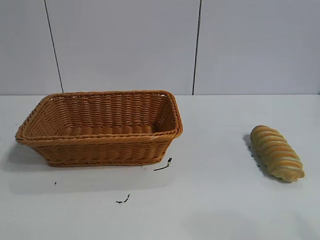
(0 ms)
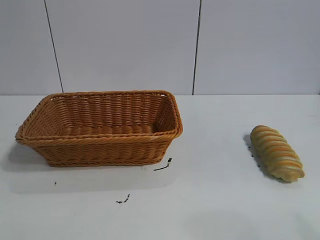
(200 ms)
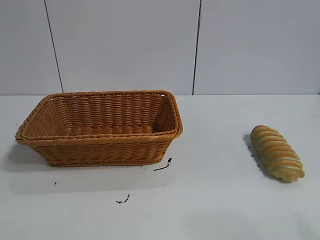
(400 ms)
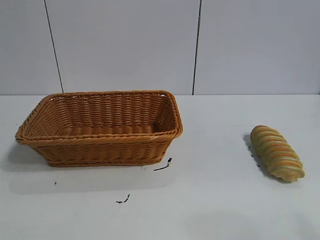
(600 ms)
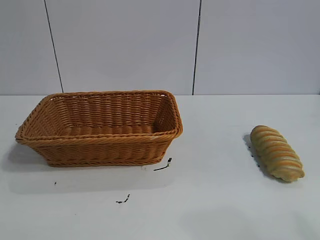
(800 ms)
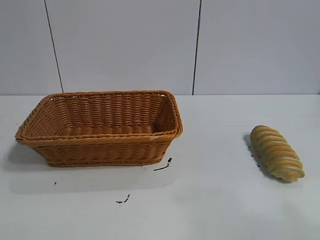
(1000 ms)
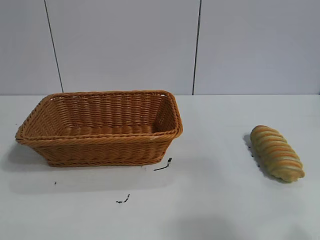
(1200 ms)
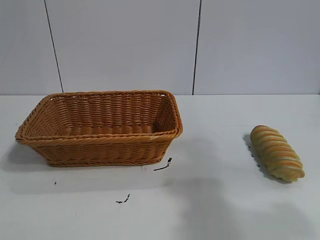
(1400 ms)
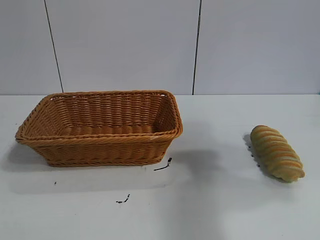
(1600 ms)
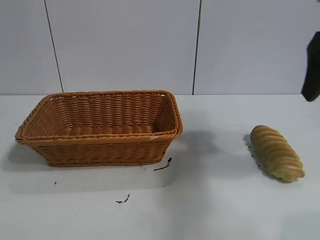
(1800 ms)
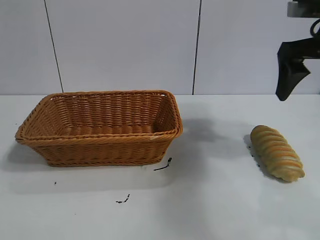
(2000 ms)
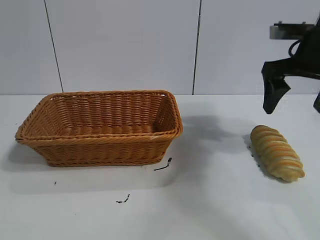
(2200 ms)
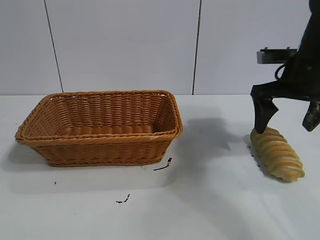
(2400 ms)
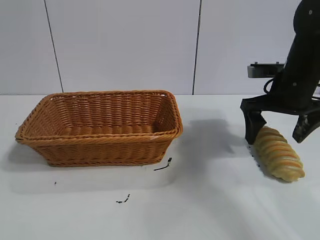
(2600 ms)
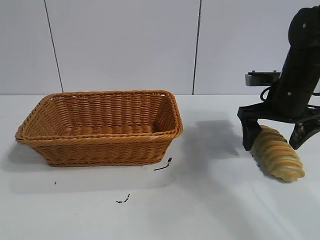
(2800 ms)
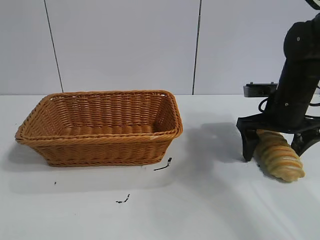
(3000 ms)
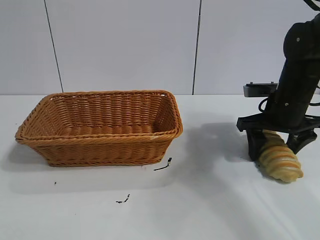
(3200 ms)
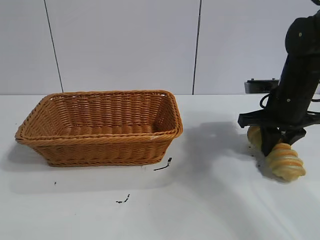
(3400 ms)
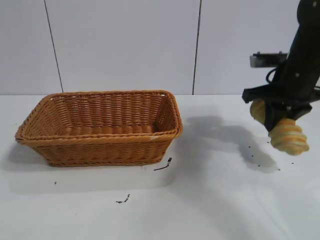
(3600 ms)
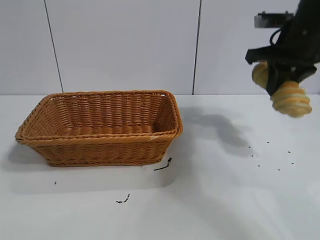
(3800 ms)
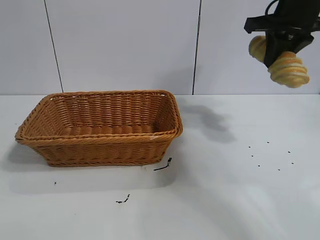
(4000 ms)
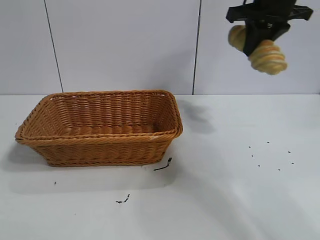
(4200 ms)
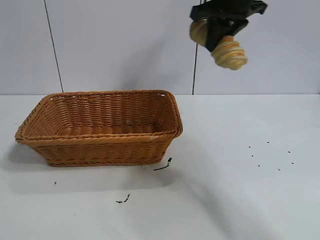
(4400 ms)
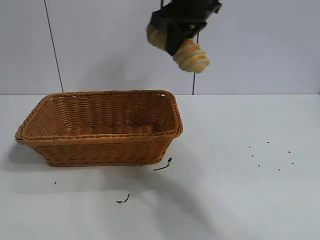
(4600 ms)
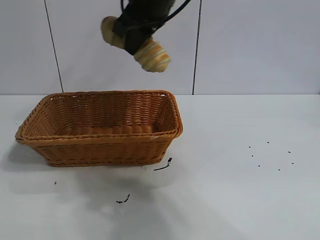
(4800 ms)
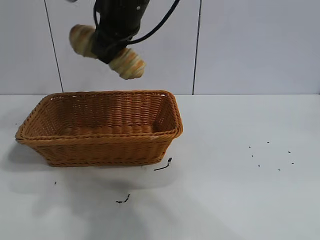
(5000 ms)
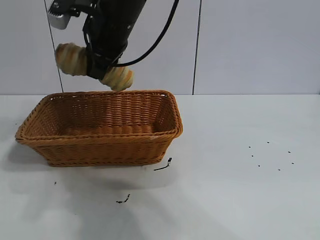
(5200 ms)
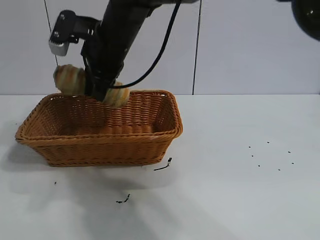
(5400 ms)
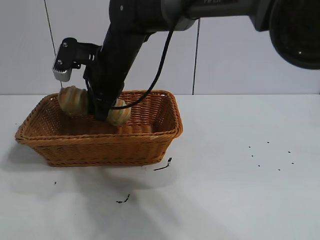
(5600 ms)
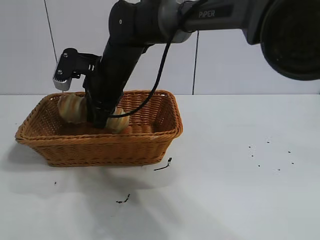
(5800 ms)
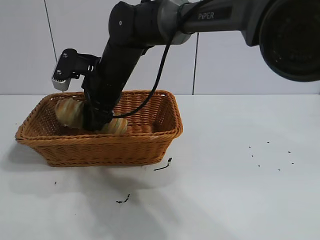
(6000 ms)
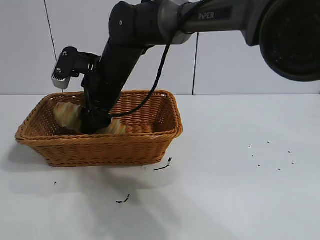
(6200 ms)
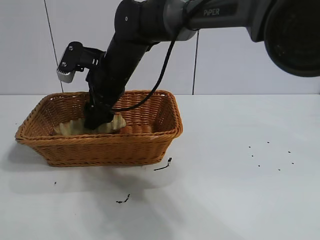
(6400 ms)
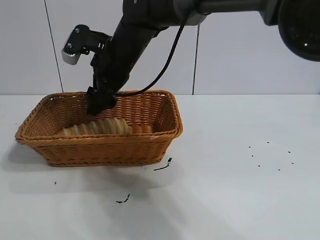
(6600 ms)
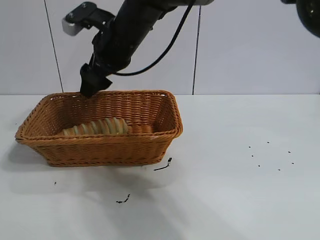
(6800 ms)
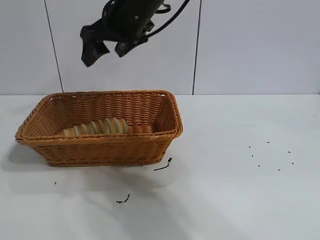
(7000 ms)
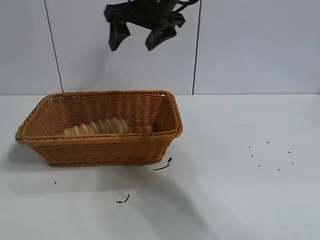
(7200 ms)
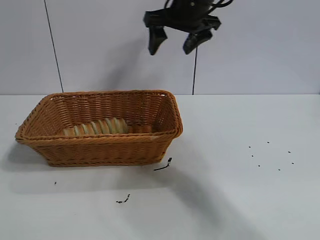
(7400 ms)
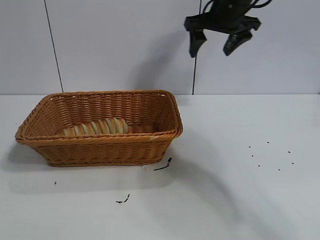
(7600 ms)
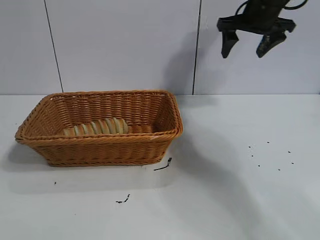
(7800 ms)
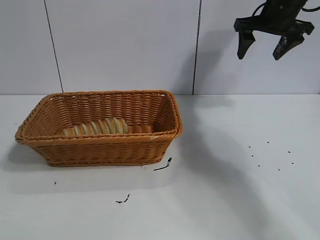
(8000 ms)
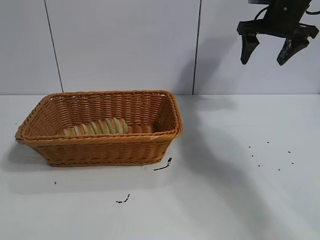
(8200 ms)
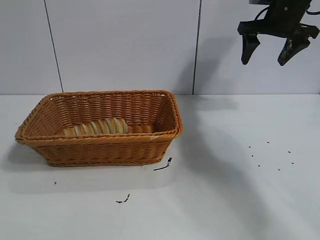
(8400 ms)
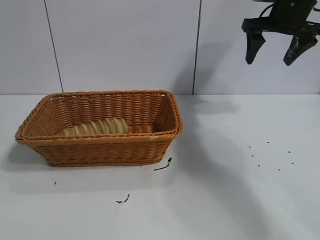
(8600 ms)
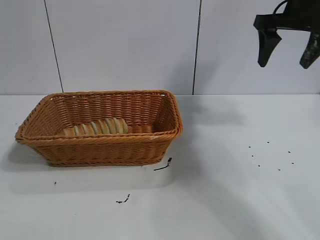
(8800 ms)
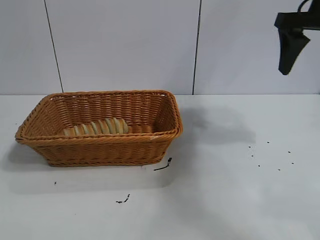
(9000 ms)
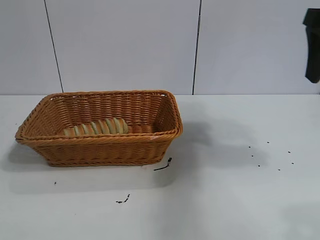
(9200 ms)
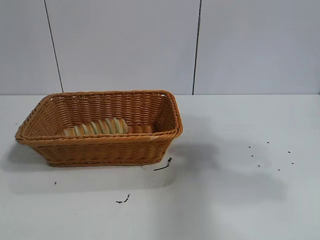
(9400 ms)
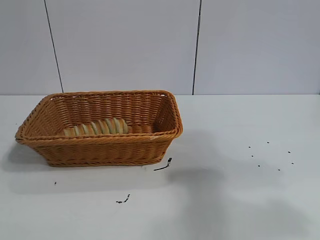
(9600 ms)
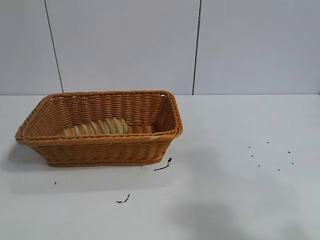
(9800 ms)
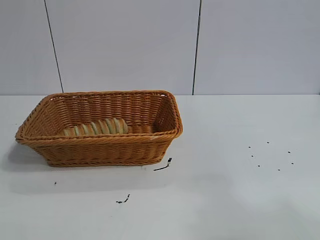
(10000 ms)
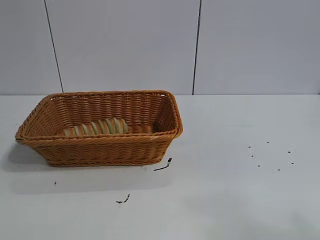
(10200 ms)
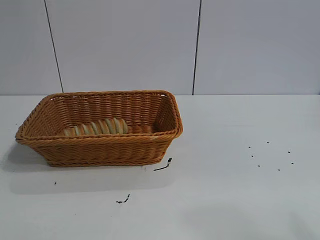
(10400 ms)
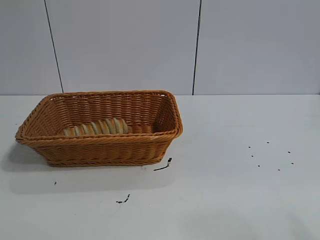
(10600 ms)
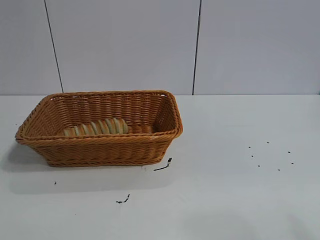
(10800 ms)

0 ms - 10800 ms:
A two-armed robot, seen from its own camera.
Task of the whole recording: pick up the long bread and put it into the basket.
Step, 1800 ms - 3400 ms: Grasp the long bread with right gripper.
Step, 3600 ms - 6600 ms: Place the long bread in the basket with right gripper.

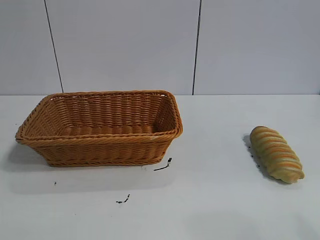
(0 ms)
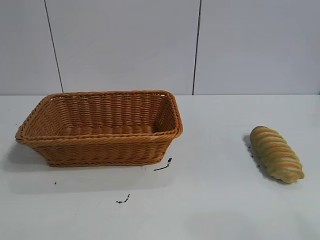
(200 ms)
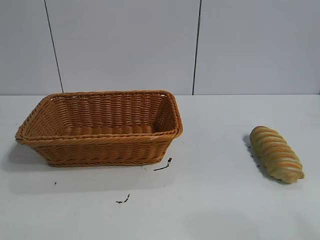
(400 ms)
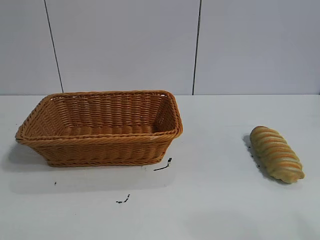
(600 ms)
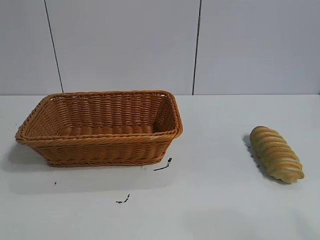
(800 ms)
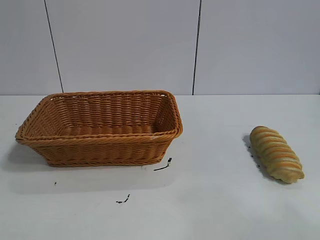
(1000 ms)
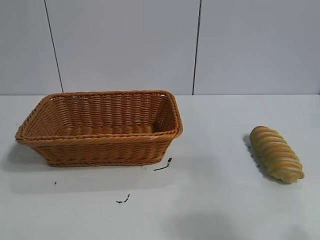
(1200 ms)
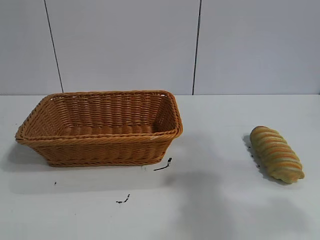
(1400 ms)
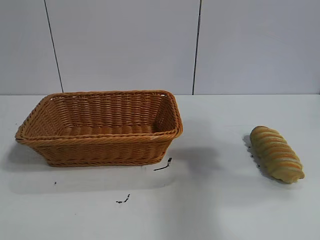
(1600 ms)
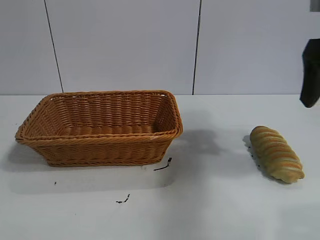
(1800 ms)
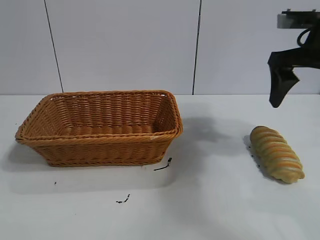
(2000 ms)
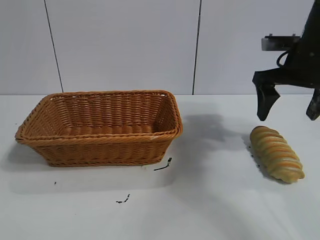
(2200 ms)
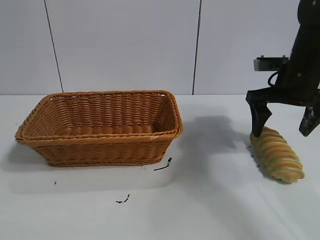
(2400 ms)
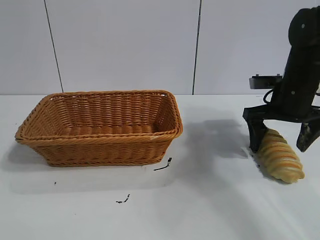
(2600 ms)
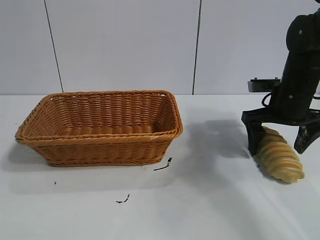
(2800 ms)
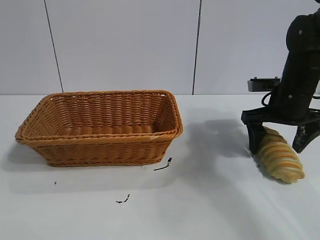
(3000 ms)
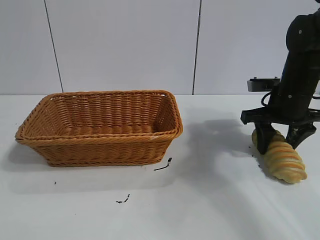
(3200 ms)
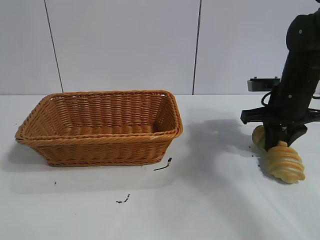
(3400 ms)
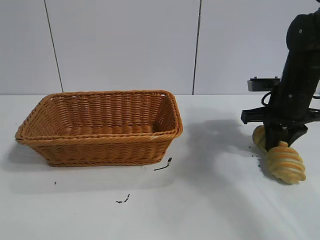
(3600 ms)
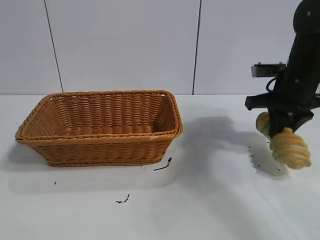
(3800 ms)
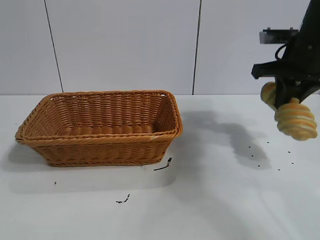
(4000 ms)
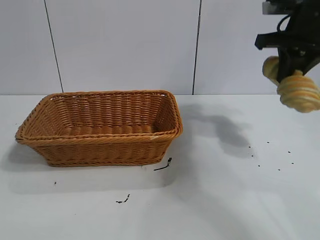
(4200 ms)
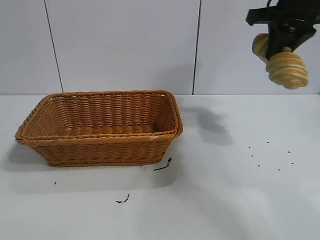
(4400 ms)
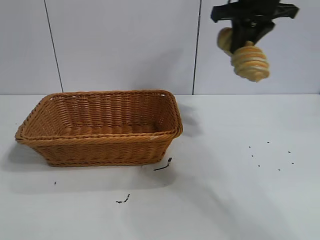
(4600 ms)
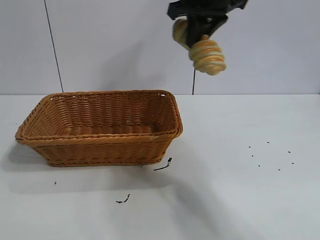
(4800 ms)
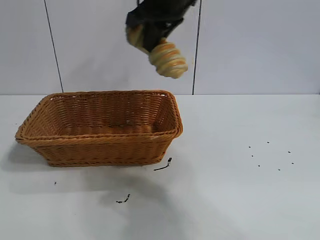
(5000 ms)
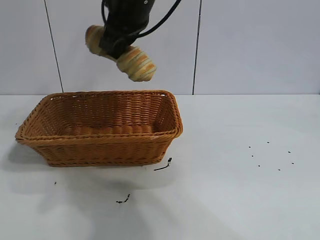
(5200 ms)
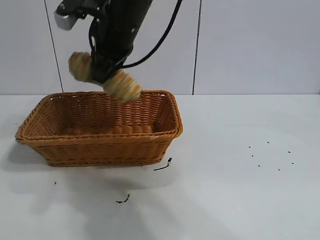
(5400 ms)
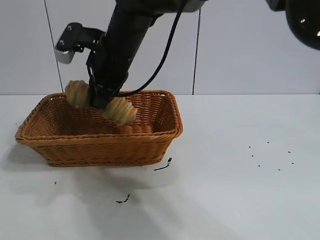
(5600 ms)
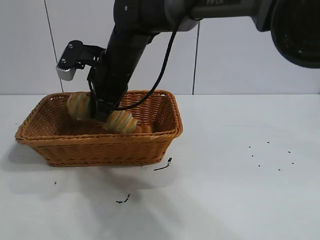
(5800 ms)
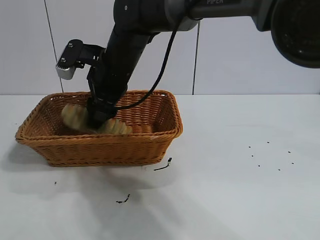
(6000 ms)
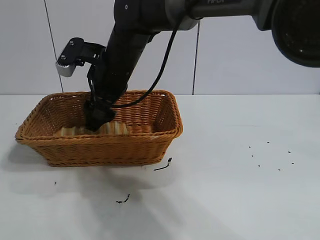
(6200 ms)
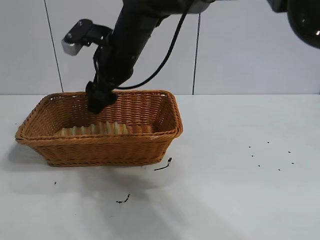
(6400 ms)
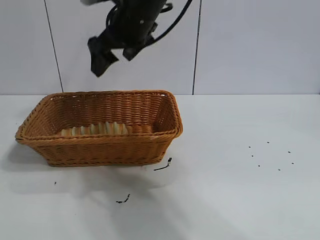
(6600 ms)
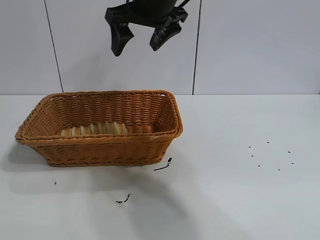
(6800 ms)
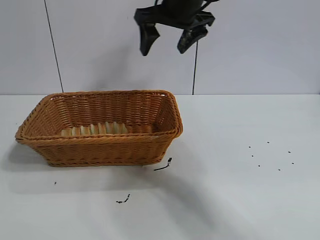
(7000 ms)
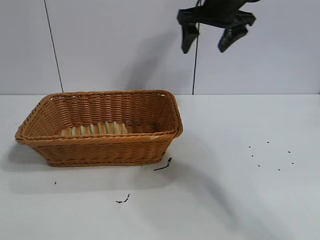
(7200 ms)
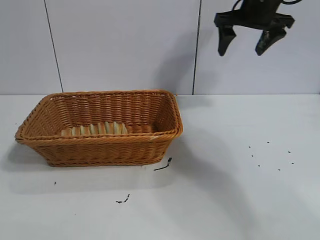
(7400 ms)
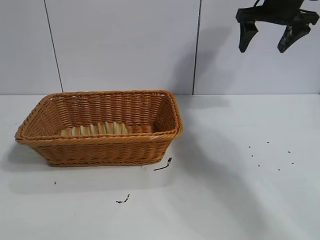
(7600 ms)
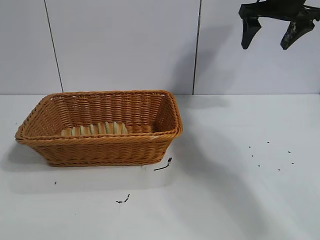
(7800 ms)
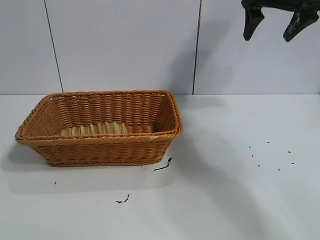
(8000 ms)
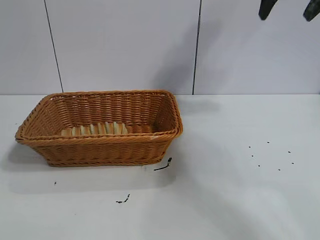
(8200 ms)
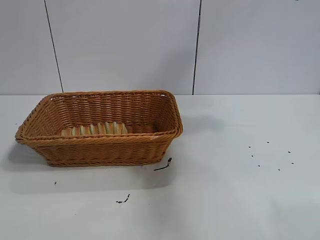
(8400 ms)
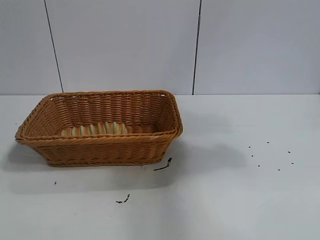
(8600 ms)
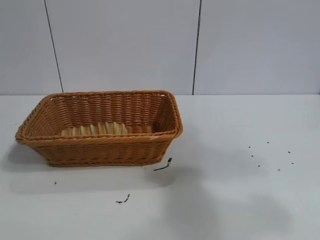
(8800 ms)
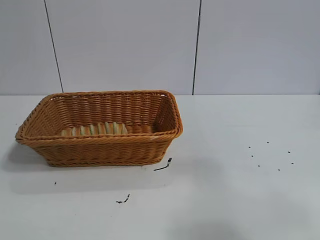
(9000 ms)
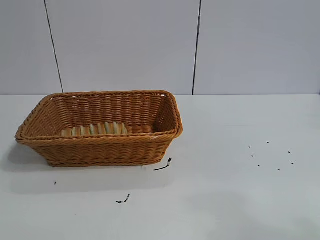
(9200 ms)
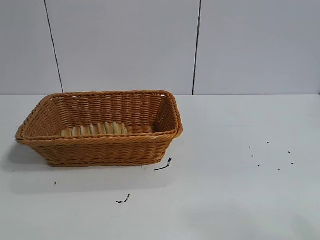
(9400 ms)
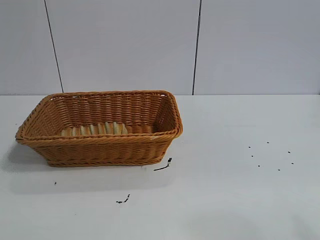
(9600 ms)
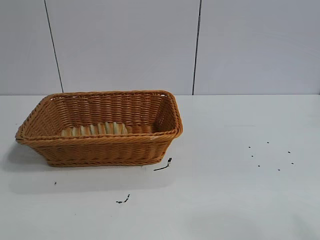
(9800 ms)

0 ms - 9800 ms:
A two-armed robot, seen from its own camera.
Task of the whole recording: pick up the long bread and put it into the basket.
Step, 1800 ms - 3600 ms: Grasp the long bread with right gripper.
Step, 3800 ms - 6400 ms: Place the long bread in the basket with right gripper.

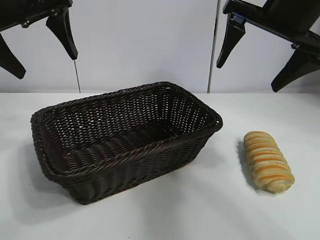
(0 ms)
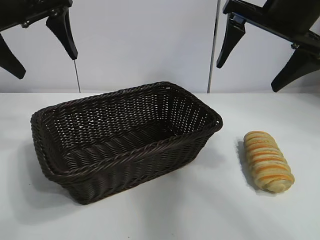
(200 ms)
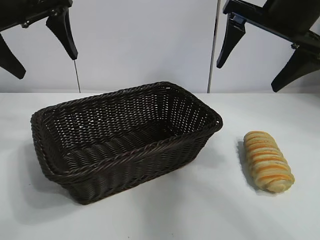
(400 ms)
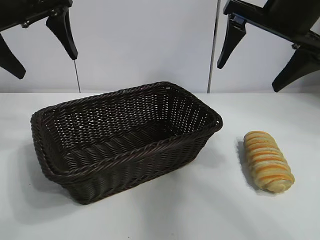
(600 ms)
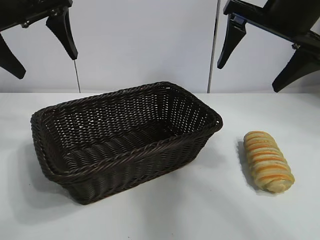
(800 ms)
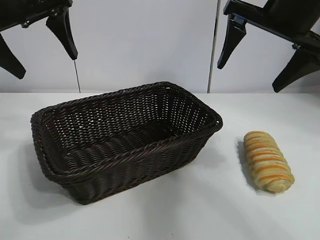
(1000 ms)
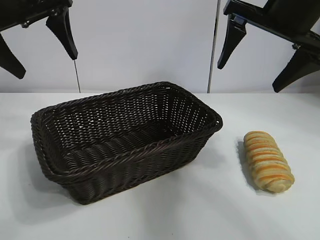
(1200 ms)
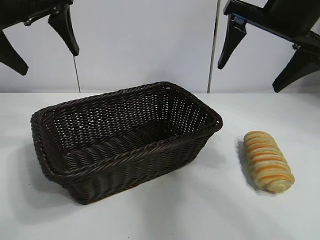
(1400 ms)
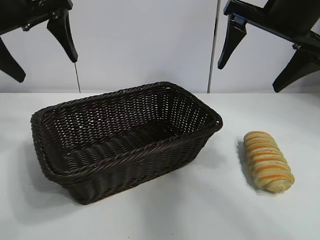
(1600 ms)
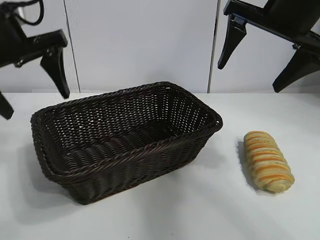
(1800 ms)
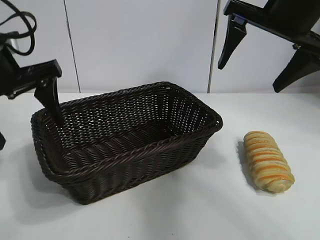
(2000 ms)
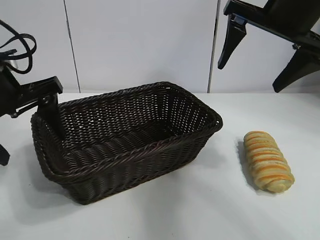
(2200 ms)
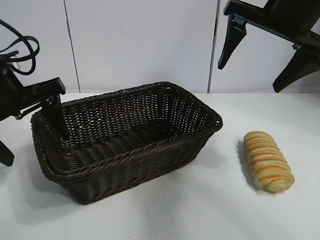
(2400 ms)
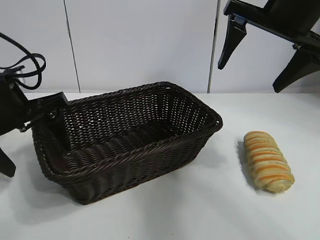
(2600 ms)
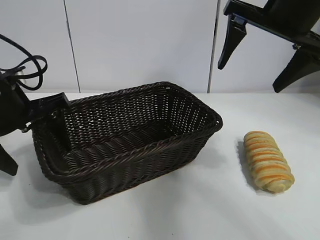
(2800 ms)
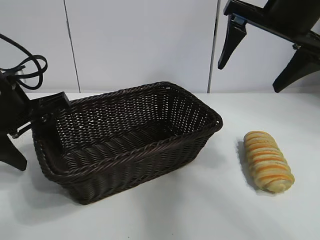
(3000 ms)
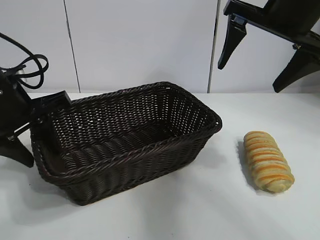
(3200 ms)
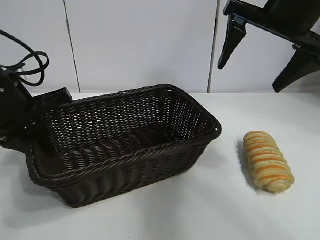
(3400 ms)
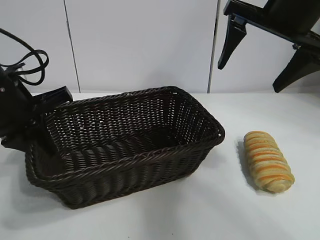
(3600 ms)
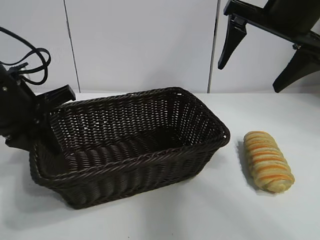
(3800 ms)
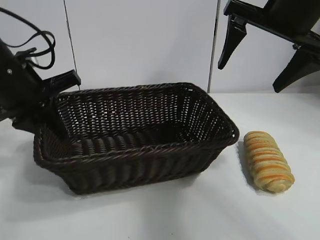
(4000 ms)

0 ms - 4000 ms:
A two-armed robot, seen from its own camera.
Task of the whole recording: pick up the long bread and put it into the basket.
Step, 1400 ms - 3400 ms: Grasp the basket with the left gripper.
